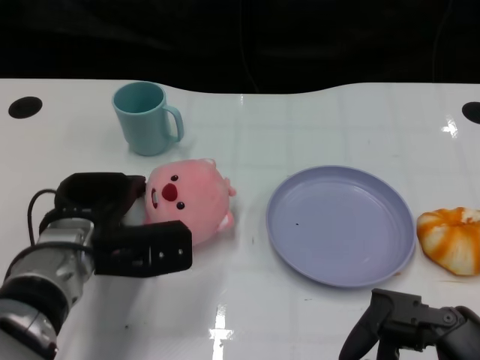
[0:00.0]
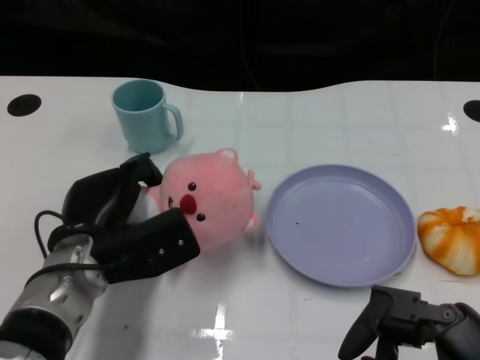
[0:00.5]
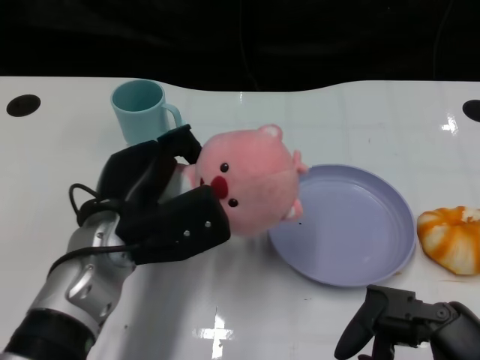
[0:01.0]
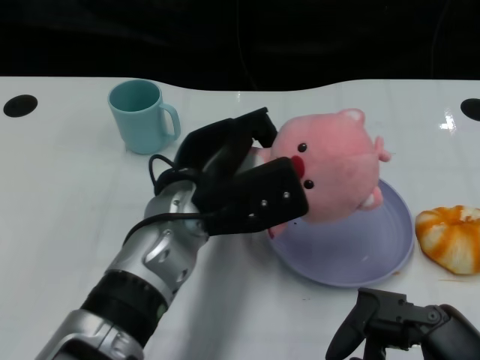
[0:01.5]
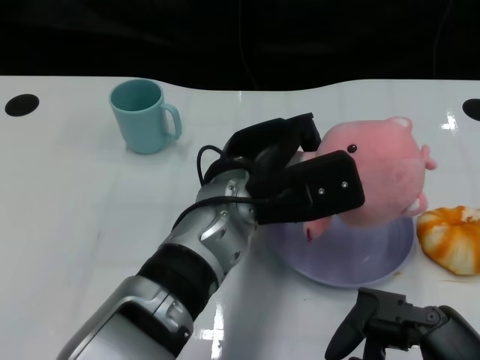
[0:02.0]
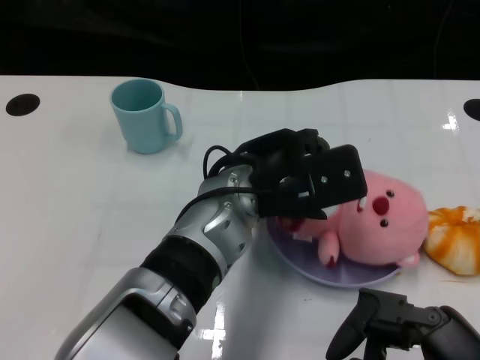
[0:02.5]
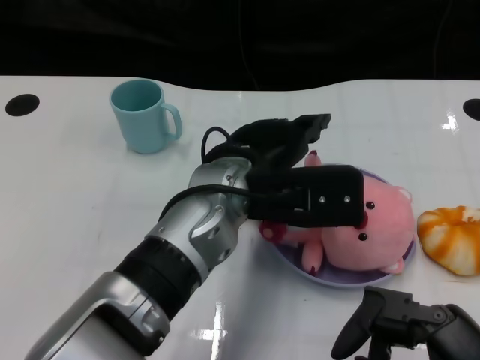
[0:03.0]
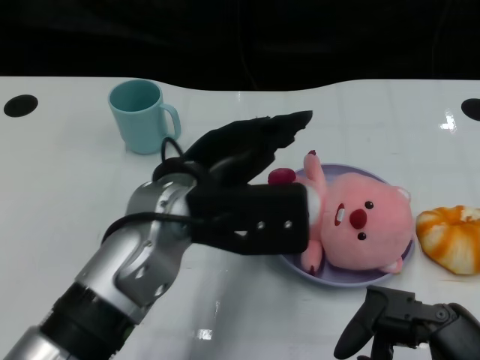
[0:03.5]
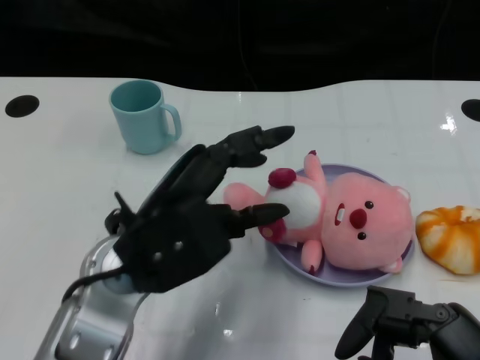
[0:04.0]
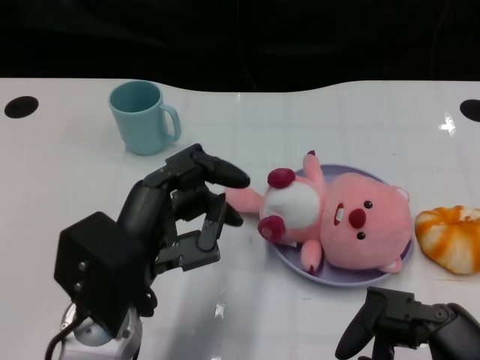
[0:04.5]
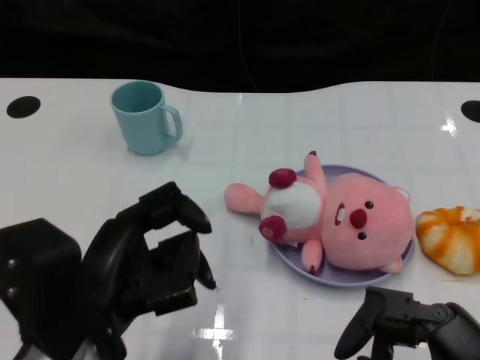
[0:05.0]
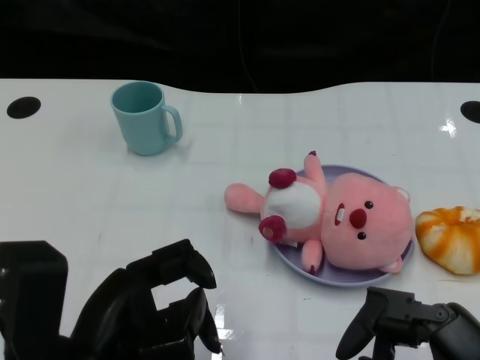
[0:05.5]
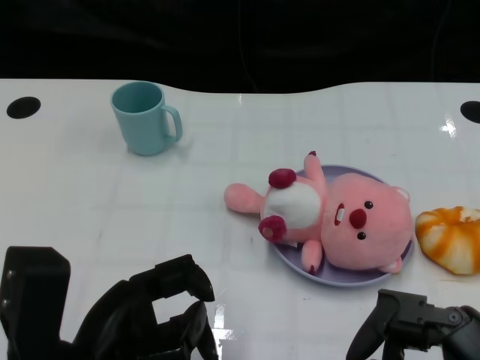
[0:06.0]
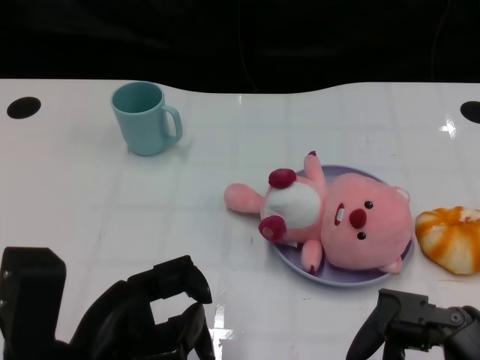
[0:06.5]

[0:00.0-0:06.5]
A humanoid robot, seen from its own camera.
Task of the whole recording: Pick up the doll on one side of the plate and place it into the plate.
Step, 0:00.5 to 0:03.0: Place the pink doll into the plate with the left gripper.
0:00.0 to 0:02.0: The left hand shifts about 15 cm to the right and upward.
0:02.0 to 0:04.5: The left hand is displaced to the left and backward by approximately 15 cm.
0:04.5 to 0:06.5: The left hand shifts about 5 cm backward.

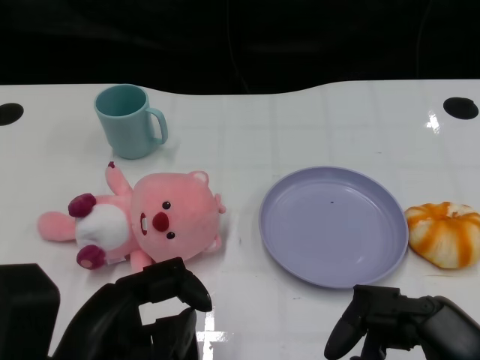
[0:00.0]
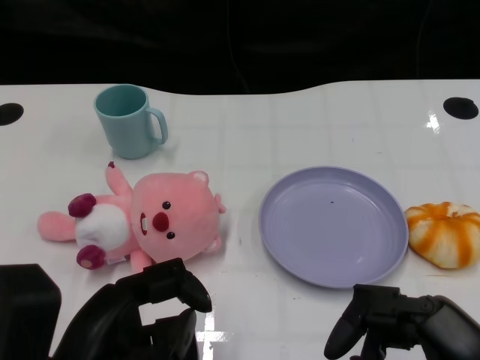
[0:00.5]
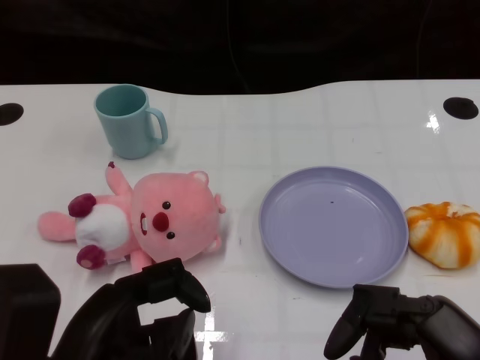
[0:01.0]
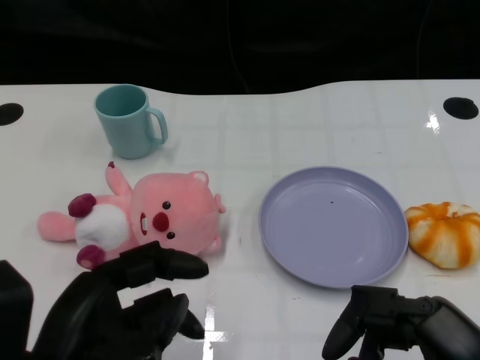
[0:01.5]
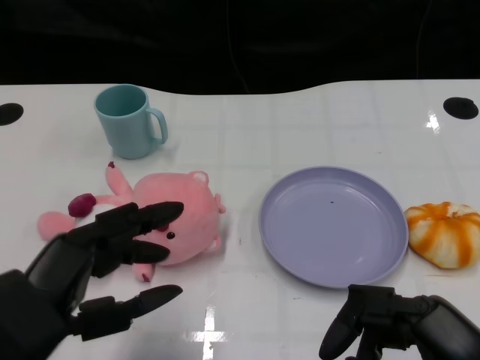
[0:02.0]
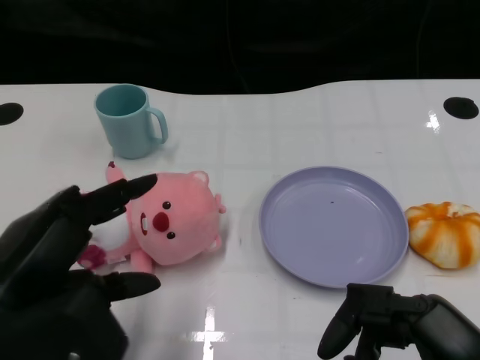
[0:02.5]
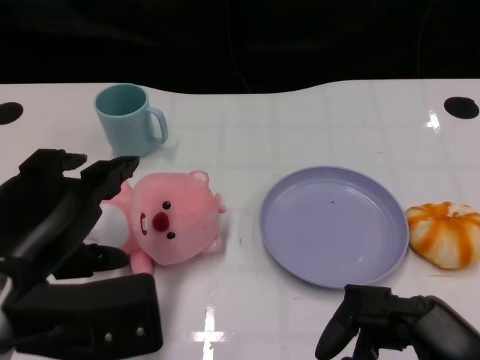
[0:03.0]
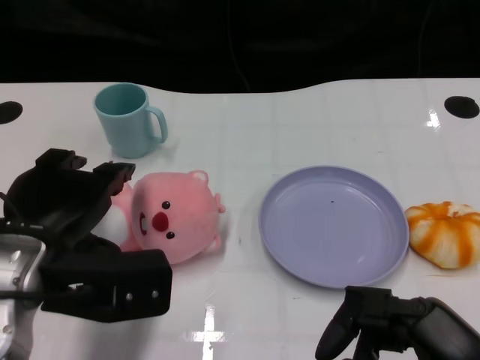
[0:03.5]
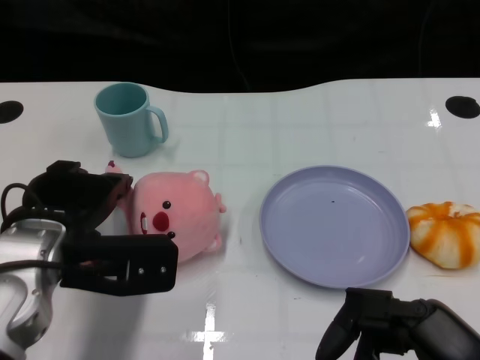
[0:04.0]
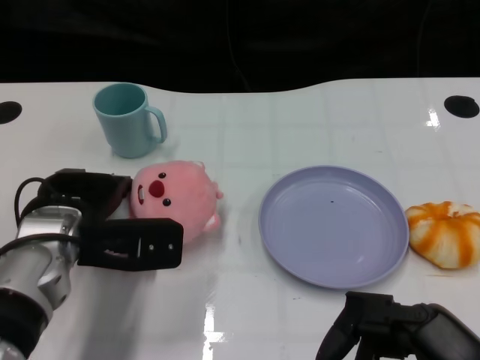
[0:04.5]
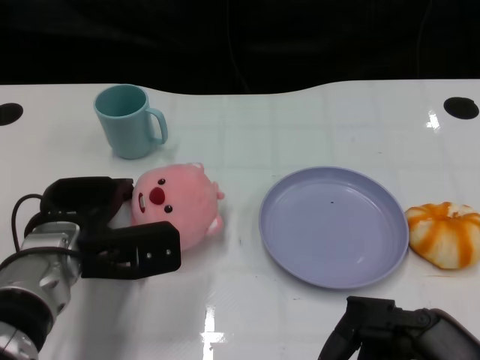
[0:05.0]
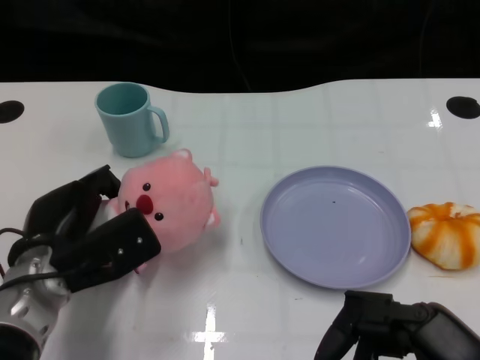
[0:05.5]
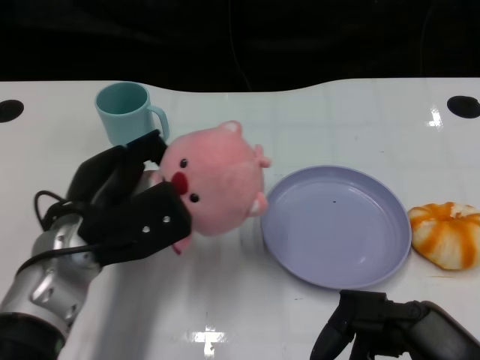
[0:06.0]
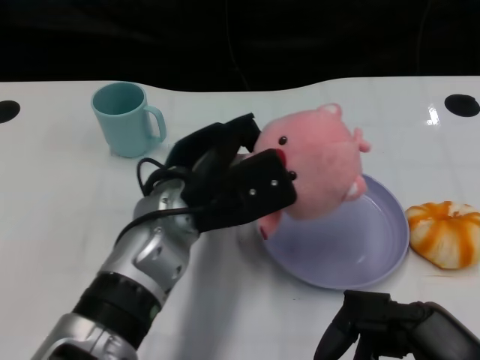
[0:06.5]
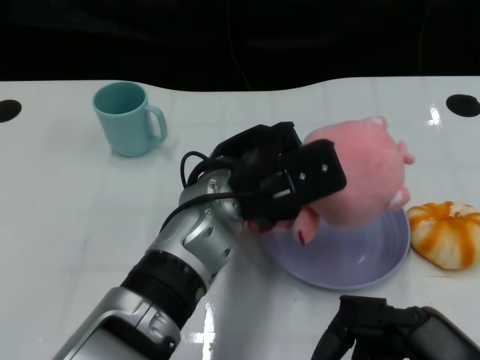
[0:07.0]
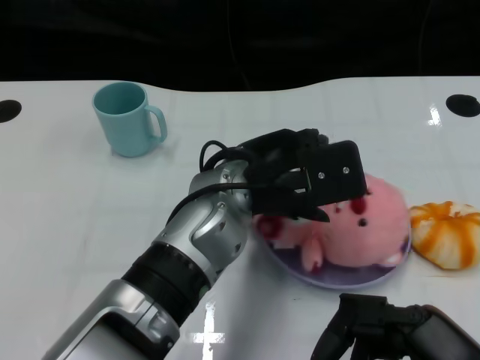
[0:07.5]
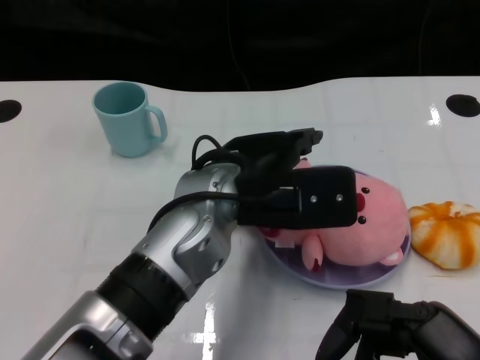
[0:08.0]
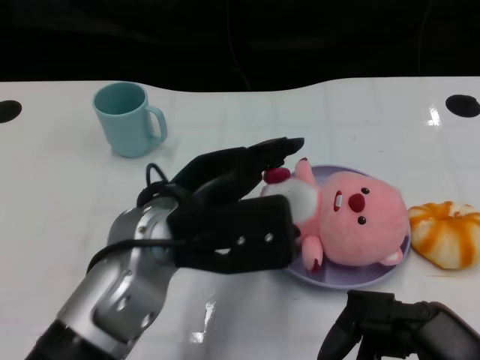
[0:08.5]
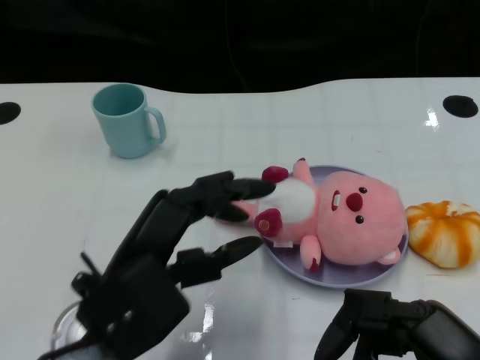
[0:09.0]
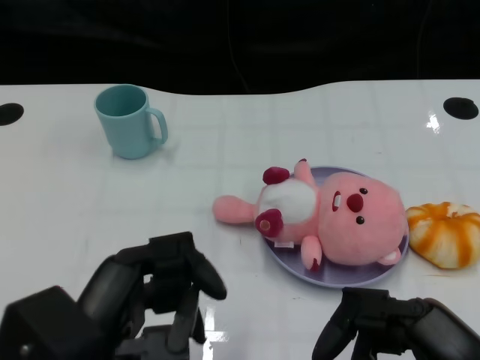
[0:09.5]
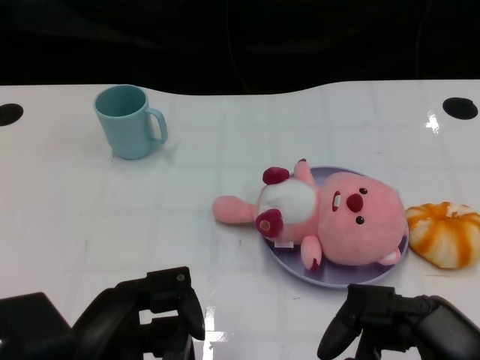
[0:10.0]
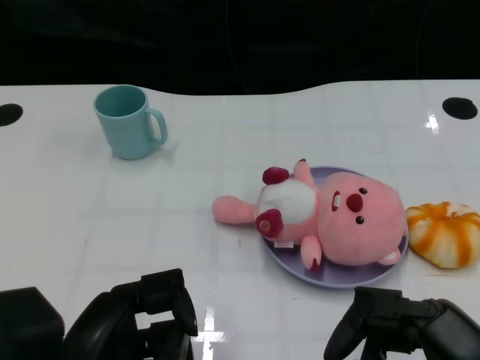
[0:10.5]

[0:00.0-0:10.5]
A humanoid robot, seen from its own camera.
Task of the whole recording: Pick up the doll on one side of the plate and place it into the plate.
Step, 0:01.5 to 0:05.5: Grasp the pink doll with the left gripper.
Step, 0:06.0 to 0:07.5: Place the pink doll into the plate with the left gripper.
0:02.0 to 0:04.0: The left hand travels forward by some 10 cm.
0:04.0 to 0:06.5: The left hand shifts approximately 10 cm to the right.
0:06.5 to 0:08.5: The left hand shifts by roughly 5 cm.
0:08.5 to 0:10.5: The left hand moves backward and to the left, about 15 cm.

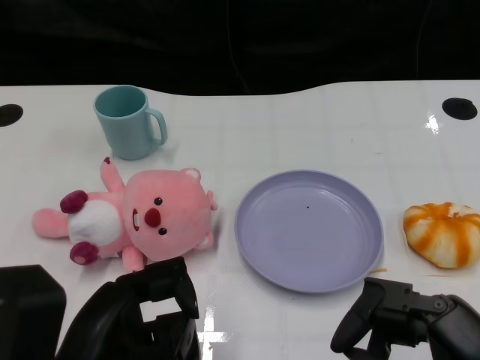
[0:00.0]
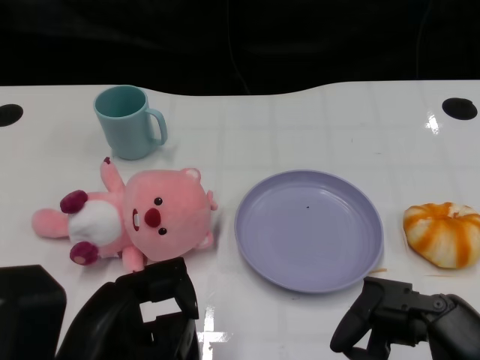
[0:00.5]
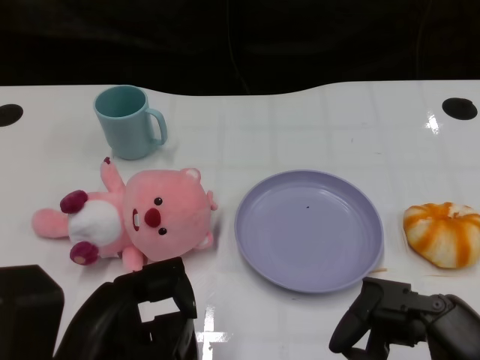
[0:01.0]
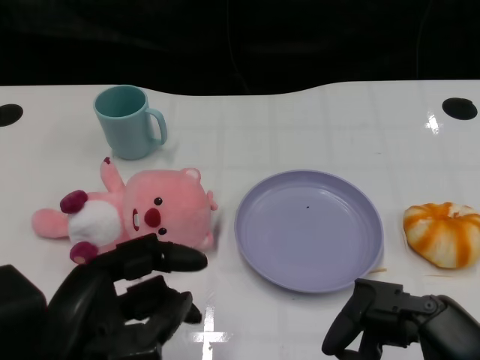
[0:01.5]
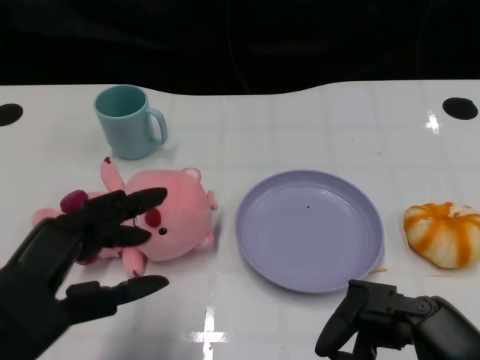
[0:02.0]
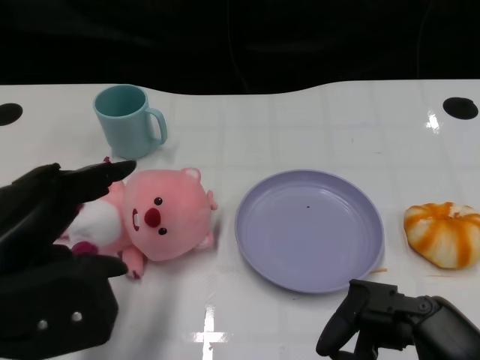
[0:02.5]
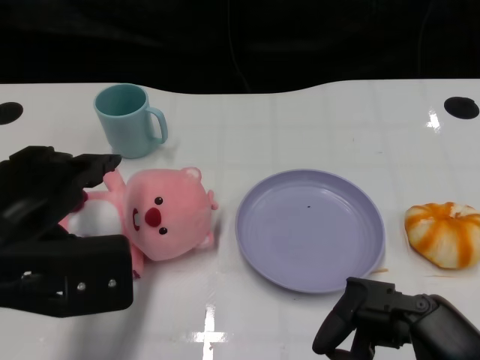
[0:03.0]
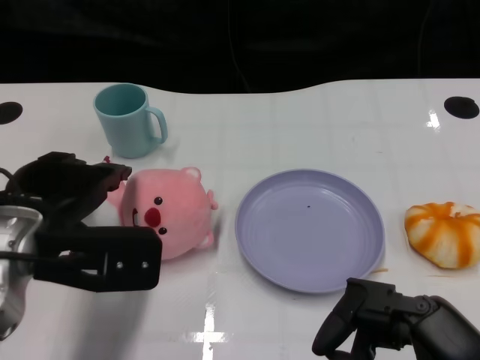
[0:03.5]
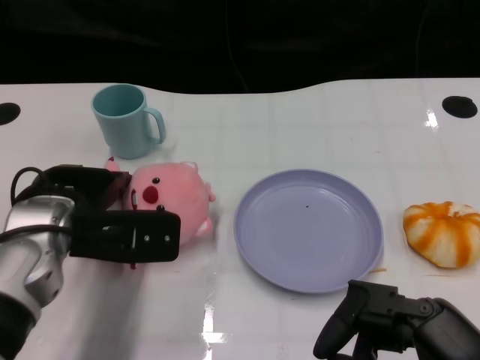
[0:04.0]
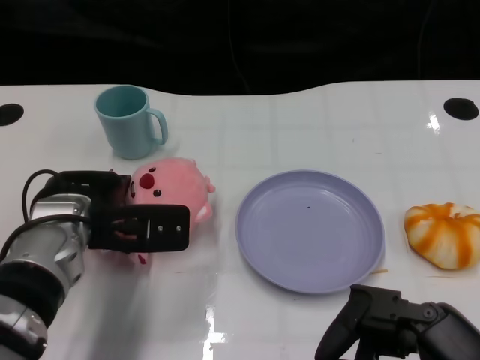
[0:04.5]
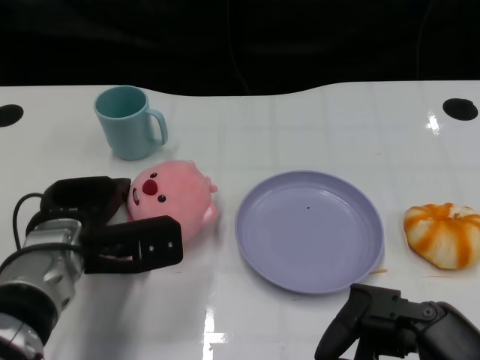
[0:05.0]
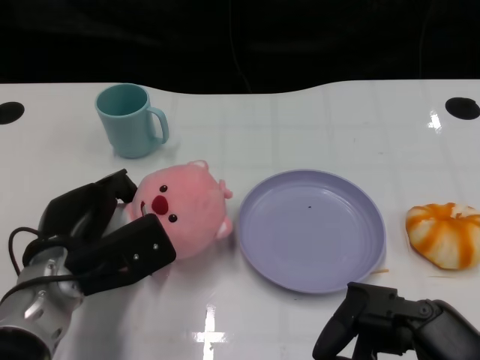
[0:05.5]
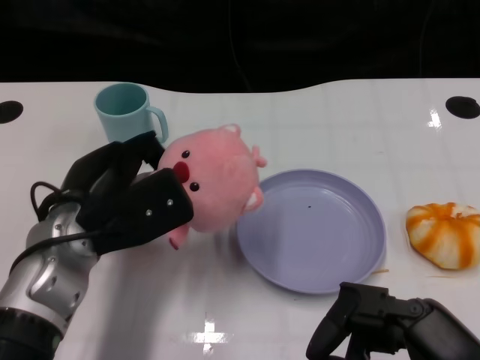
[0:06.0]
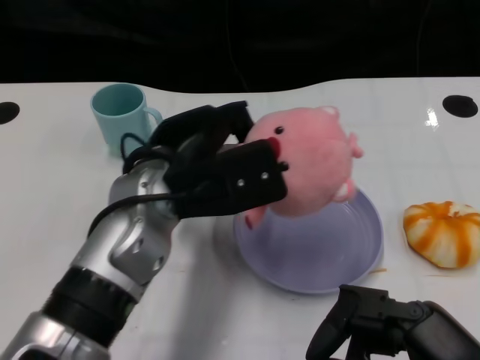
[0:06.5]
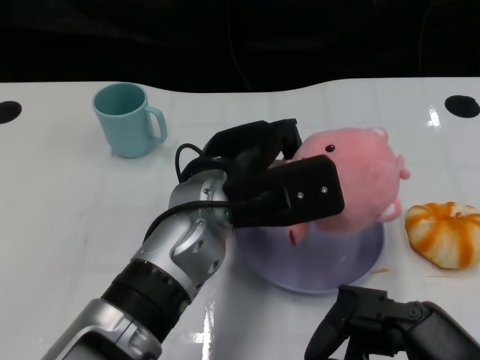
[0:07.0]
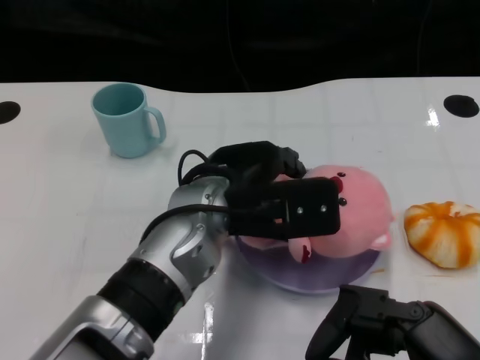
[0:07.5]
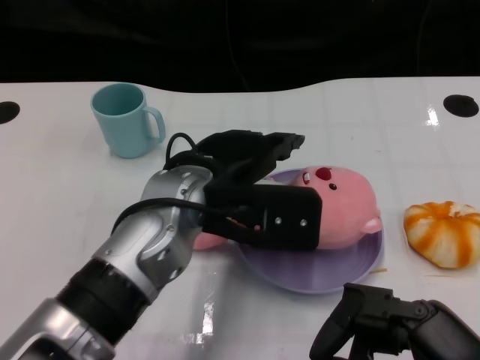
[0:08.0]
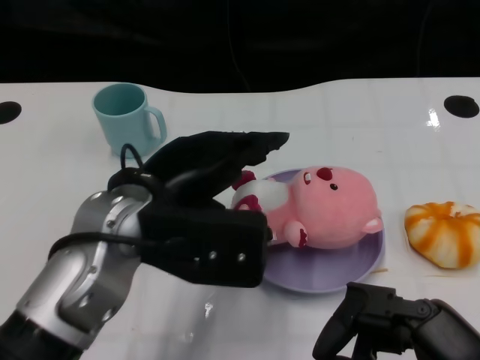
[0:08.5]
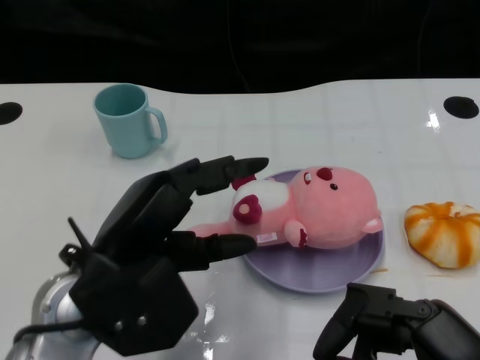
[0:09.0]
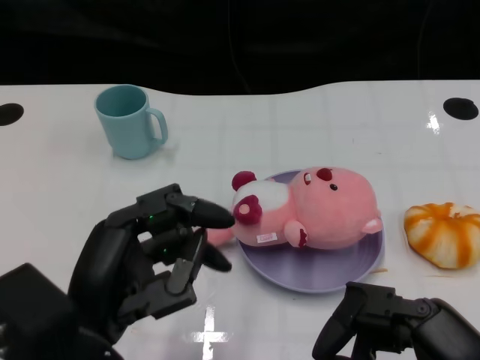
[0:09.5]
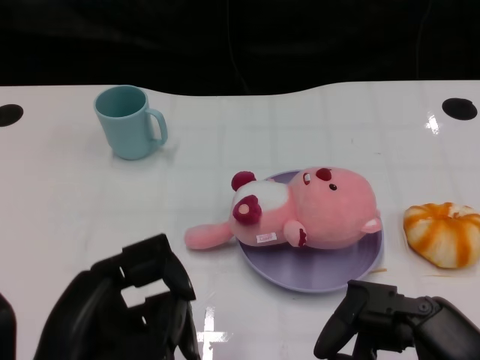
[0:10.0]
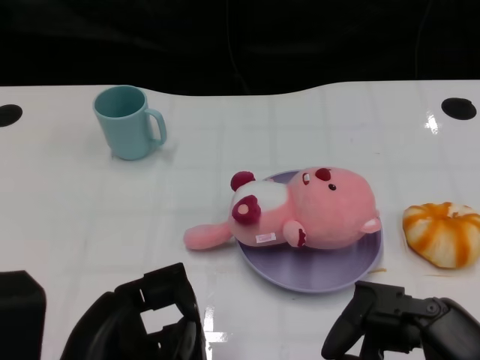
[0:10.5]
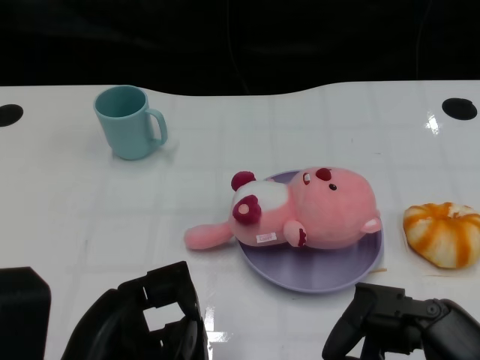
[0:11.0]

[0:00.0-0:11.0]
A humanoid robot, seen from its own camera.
Task of the whole recording: Pick up the doll on one side of the plate and place it into the plate.
Step, 0:01.5 to 0:05.5: Grasp the pink doll with the left gripper.
Step, 0:06.0 to 0:07.5: Place the pink doll into the plate with the left gripper.
0:02.0 to 0:03.5: The left hand heads forward, covering approximately 10 cm.
0:03.5 to 0:05.5: The left hand heads downward, covering approximately 10 cm.
0:05.5 to 0:07.5: The left hand is displaced to the right and upward by approximately 15 cm.
0:07.5 to 0:09.0: The left hand heads to the left and backward, covering roughly 15 cm.
0:09.0 to 0:11.0: The left hand travels backward by roughly 10 cm.
